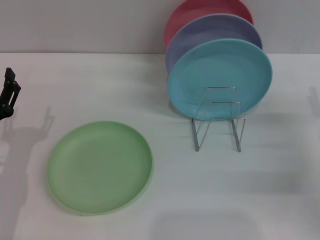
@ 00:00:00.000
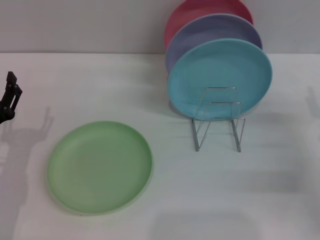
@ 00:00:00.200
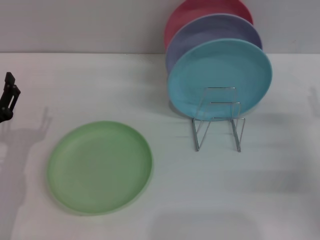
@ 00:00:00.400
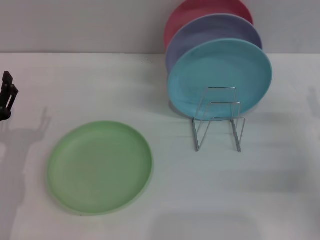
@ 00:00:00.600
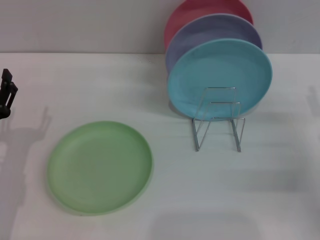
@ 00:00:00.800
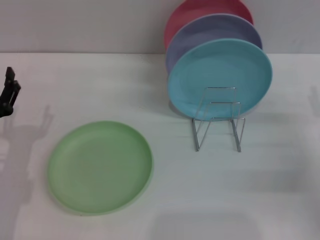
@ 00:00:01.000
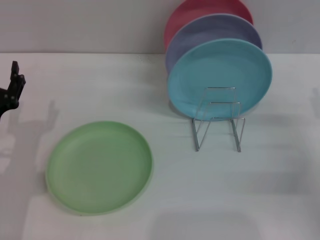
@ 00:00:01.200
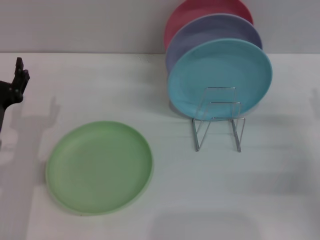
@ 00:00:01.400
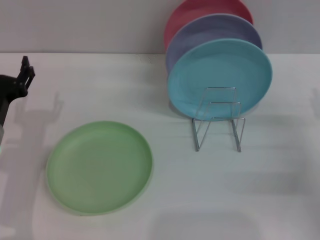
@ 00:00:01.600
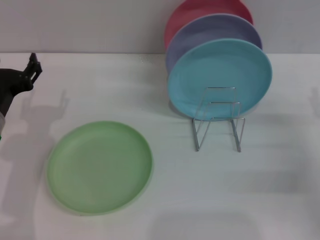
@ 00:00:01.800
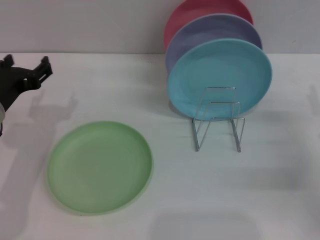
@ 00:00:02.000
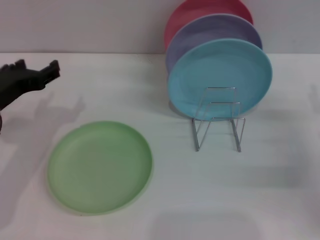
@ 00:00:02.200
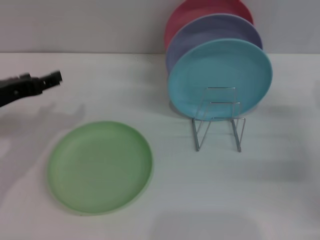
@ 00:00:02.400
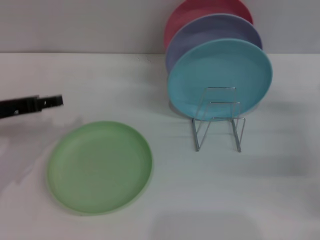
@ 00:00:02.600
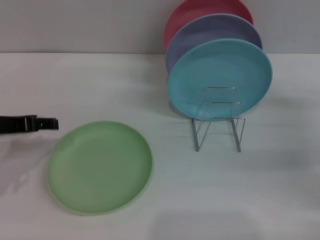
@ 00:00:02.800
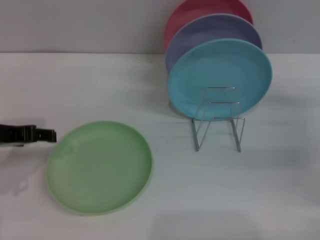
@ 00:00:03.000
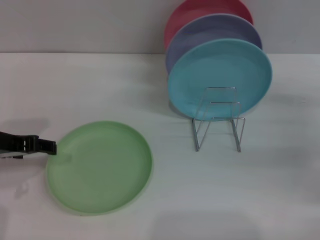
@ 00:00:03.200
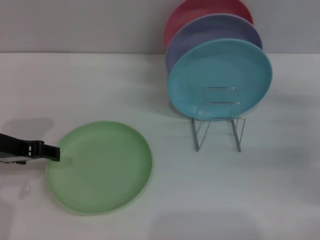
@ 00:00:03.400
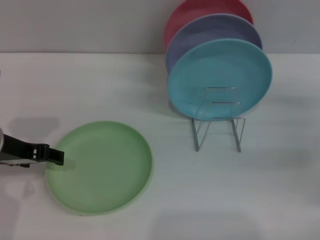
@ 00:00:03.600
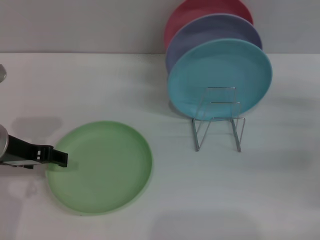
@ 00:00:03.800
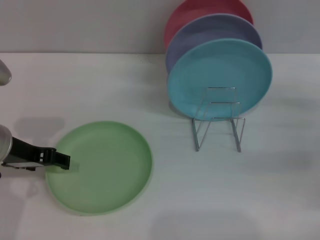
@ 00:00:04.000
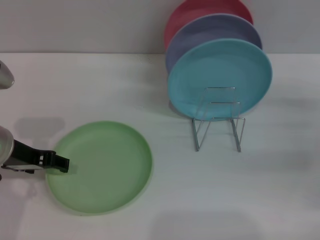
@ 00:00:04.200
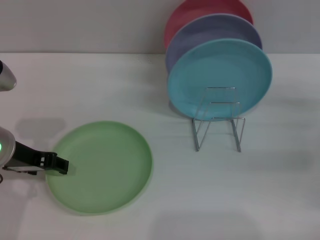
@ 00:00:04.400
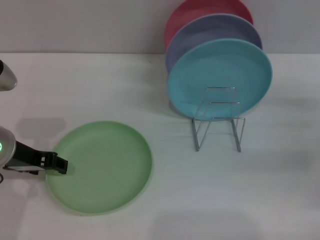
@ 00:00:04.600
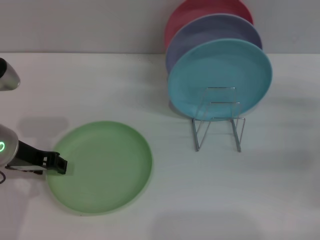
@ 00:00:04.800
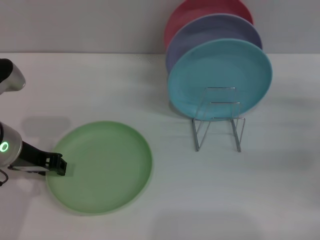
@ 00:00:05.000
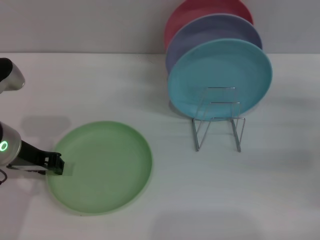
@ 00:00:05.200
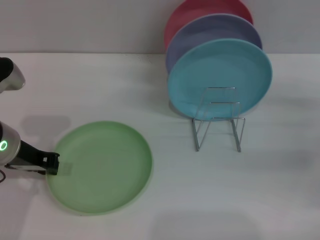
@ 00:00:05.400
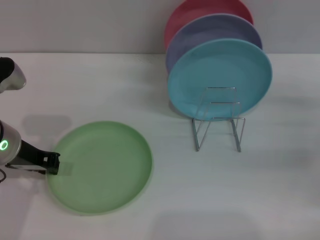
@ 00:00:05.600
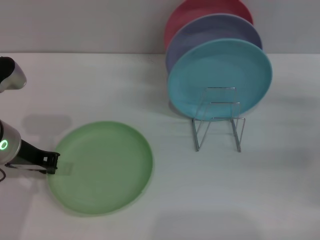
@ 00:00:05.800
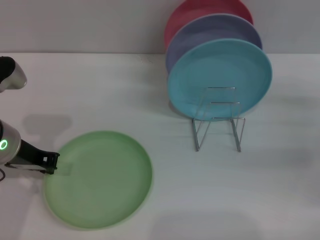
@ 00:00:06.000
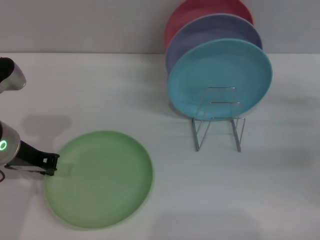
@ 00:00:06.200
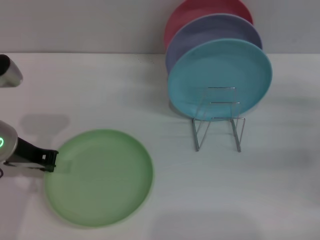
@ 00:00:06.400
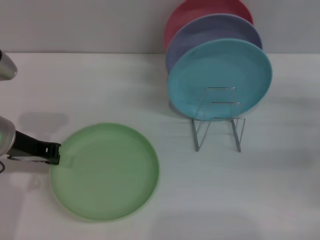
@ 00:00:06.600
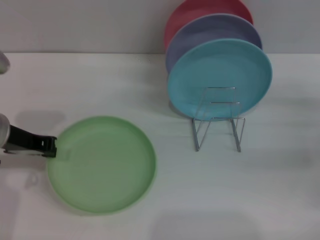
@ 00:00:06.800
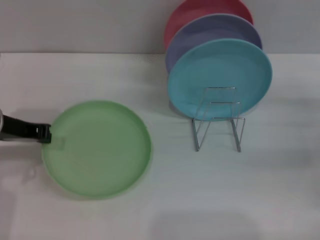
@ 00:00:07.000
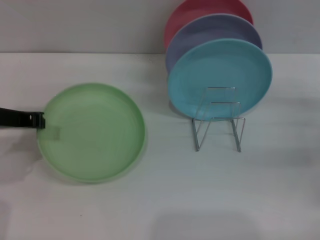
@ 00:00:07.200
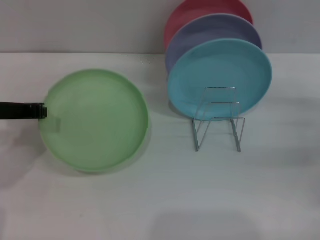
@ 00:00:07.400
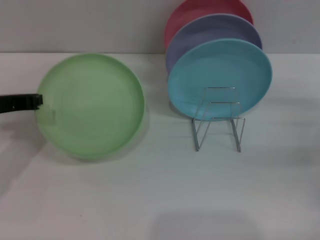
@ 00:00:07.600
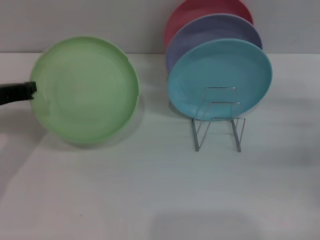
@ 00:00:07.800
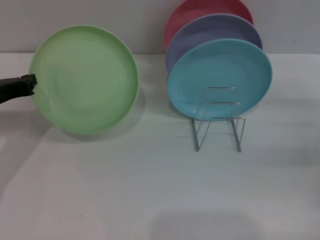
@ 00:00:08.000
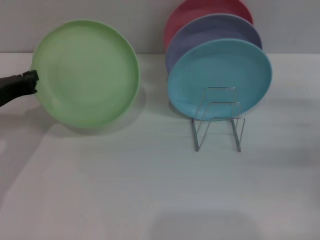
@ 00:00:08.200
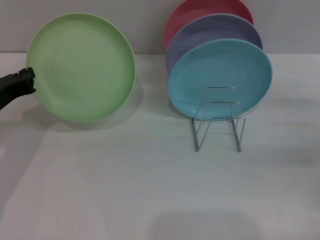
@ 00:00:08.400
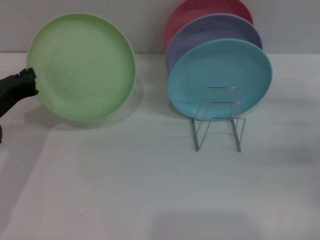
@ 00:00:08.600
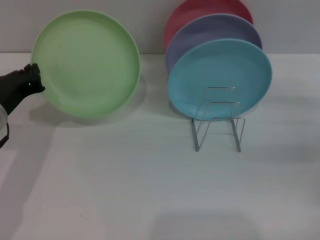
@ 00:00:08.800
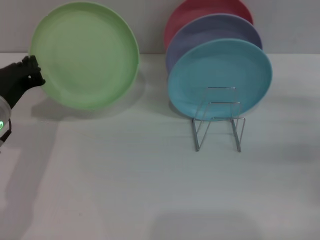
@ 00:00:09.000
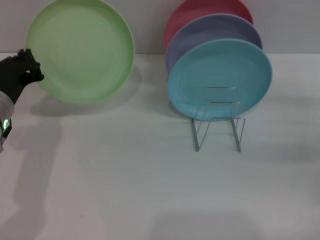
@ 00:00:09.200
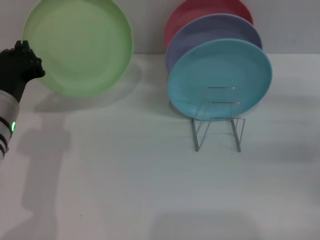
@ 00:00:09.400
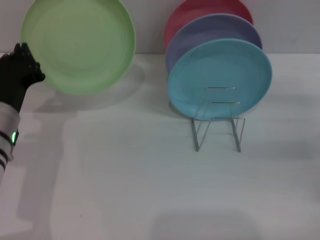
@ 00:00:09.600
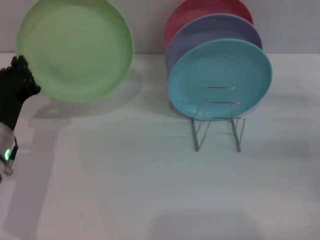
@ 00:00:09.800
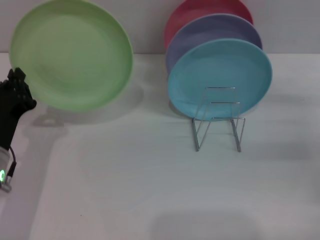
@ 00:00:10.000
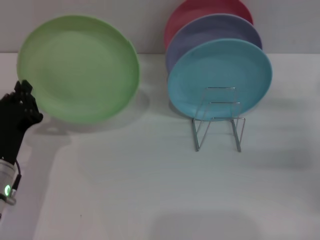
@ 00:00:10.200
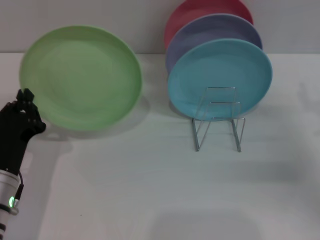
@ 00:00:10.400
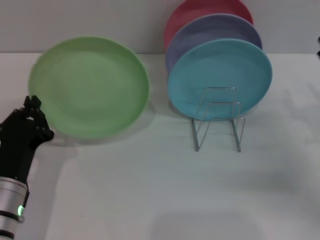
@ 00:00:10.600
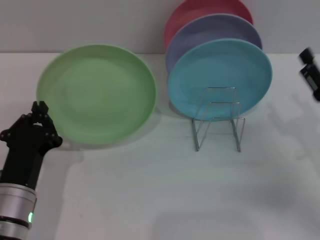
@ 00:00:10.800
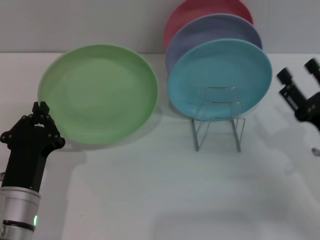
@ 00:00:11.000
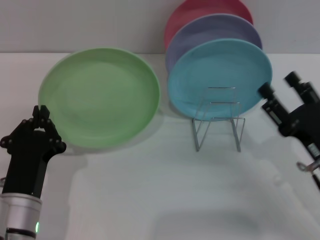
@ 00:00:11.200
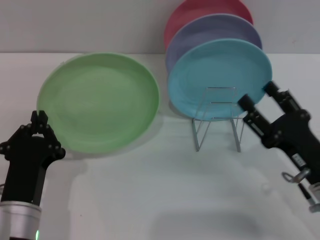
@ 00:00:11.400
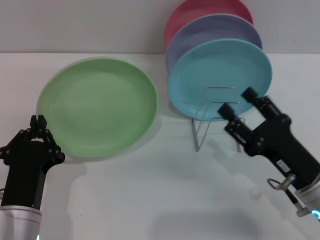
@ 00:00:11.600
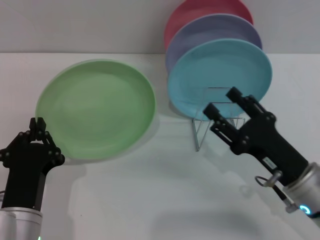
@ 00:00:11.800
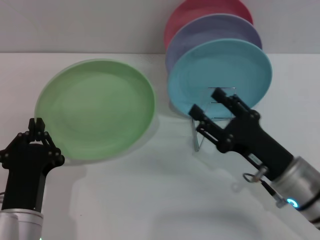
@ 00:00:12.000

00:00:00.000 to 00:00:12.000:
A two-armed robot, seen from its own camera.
Task of the whole recording: Grip the plate with one hand, pass it to the other, then set it on the shelf.
Step, 00:00:00.000 to 00:00:07.800: Pick up the plate with the left gripper.
00:00:00.000 to 00:00:01.600: The left gripper shifts by roughly 5 cm.
00:00:01.600 to 00:00:03.000: The right gripper shifts by about 5 cm. Meanwhile the left gripper moves upward, approximately 10 cm.
00:00:03.000 to 00:00:04.400: The grippers stay close to where they were, moving slightly.
00:00:04.400 to 00:00:06.000: The left gripper closes its fingers.
00:00:06.000 to 00:00:07.600: The left gripper moves roughly 5 cm.
00:00:07.600 to 00:00:09.000: The left gripper moves some 5 cm.
00:00:09.000 to 00:00:10.400: The left gripper moves backward and downward, roughly 10 cm.
00:00:10.400 to 00:00:12.000: The left gripper heads backward and to the right, covering approximately 10 cm; the right gripper goes about 15 cm to the left.

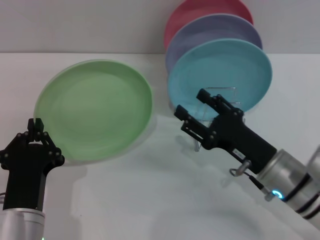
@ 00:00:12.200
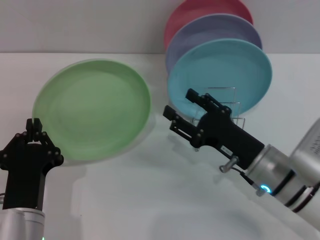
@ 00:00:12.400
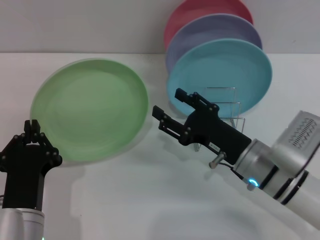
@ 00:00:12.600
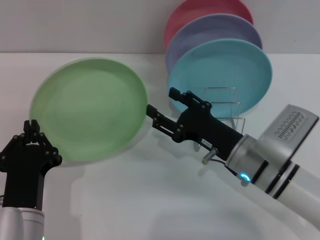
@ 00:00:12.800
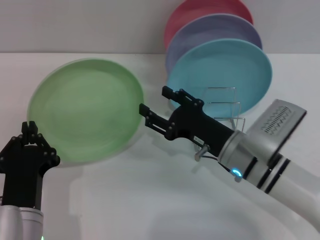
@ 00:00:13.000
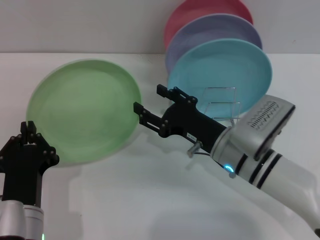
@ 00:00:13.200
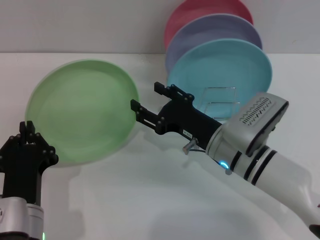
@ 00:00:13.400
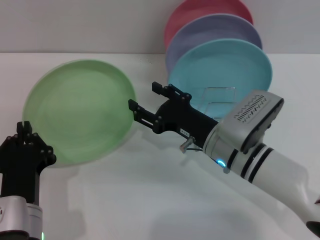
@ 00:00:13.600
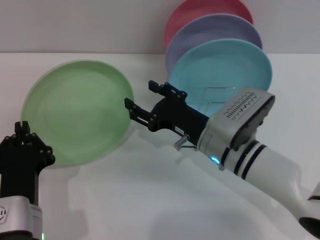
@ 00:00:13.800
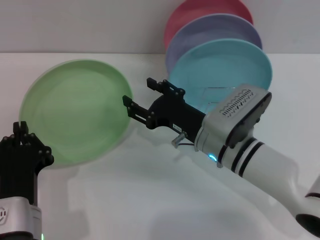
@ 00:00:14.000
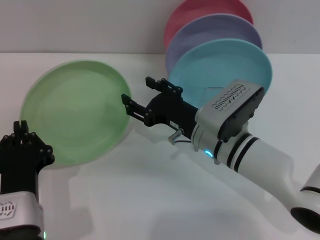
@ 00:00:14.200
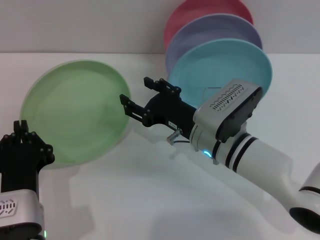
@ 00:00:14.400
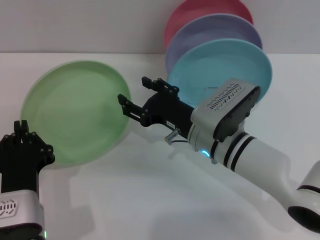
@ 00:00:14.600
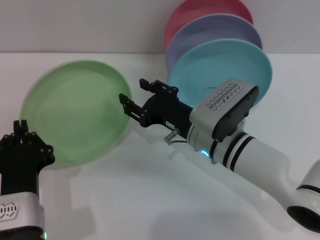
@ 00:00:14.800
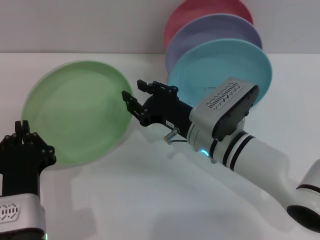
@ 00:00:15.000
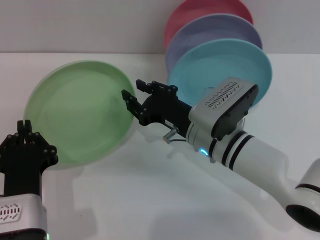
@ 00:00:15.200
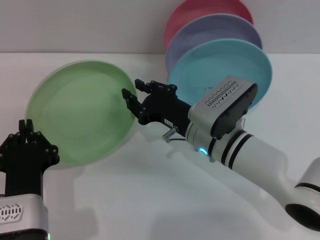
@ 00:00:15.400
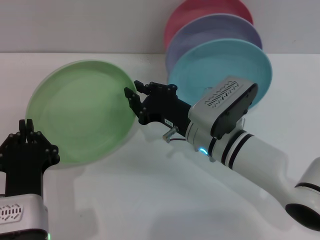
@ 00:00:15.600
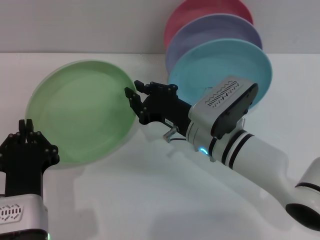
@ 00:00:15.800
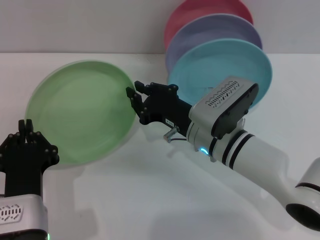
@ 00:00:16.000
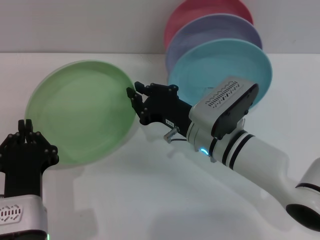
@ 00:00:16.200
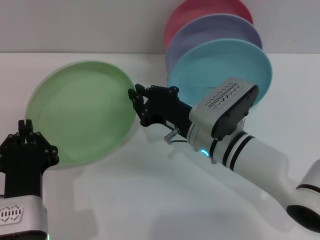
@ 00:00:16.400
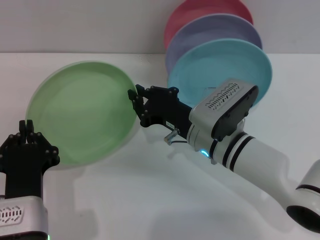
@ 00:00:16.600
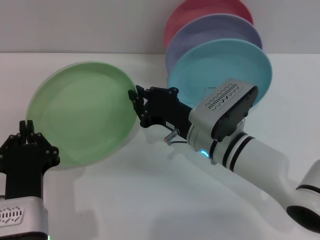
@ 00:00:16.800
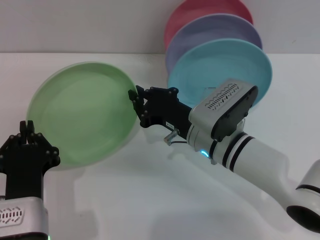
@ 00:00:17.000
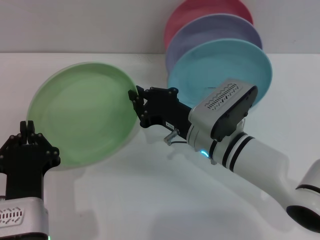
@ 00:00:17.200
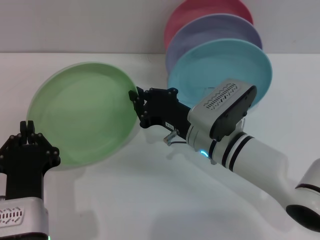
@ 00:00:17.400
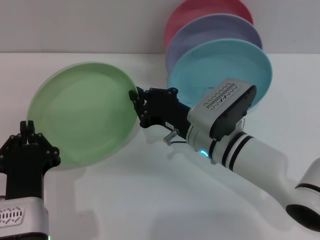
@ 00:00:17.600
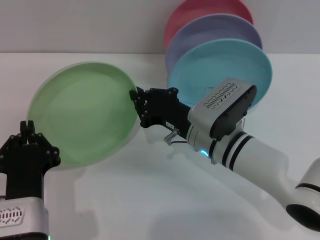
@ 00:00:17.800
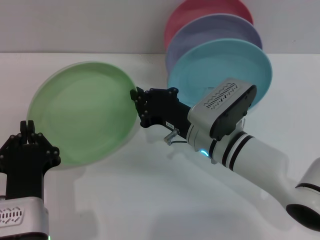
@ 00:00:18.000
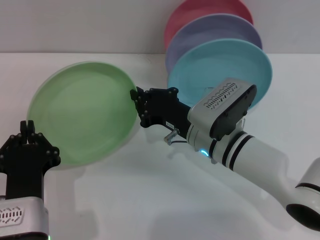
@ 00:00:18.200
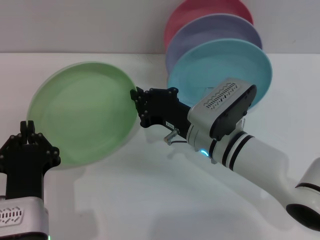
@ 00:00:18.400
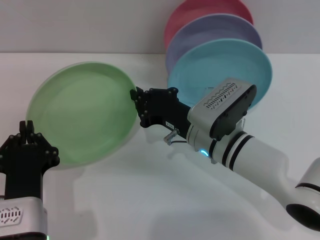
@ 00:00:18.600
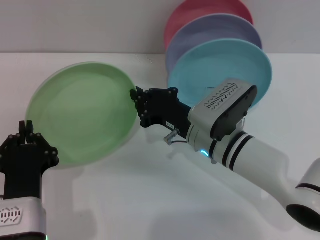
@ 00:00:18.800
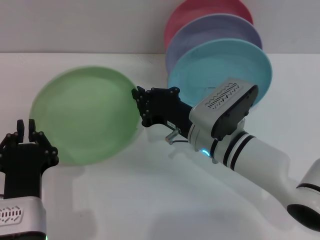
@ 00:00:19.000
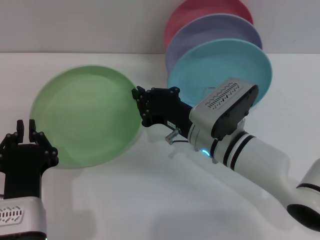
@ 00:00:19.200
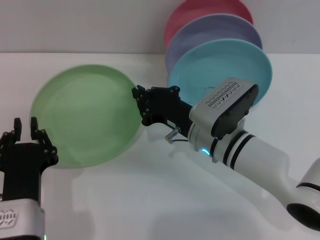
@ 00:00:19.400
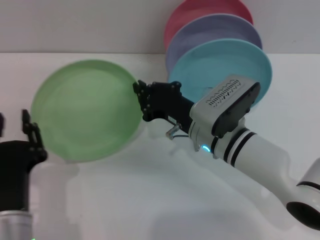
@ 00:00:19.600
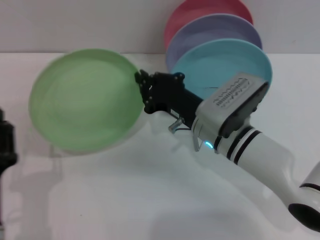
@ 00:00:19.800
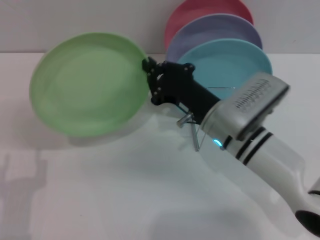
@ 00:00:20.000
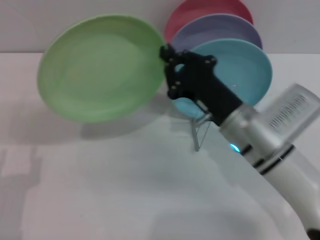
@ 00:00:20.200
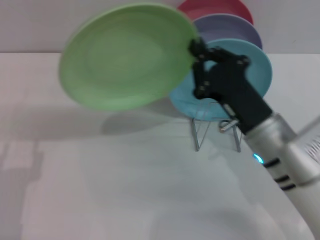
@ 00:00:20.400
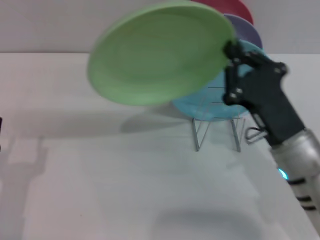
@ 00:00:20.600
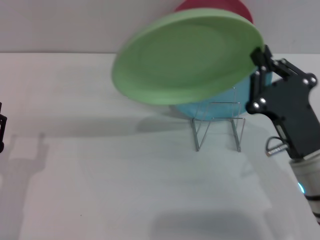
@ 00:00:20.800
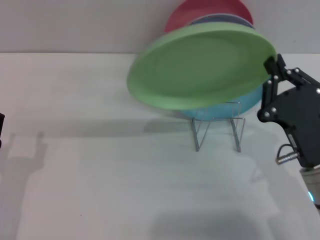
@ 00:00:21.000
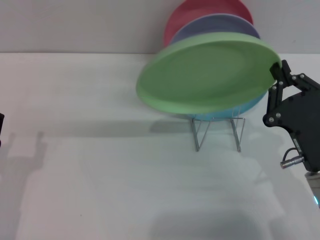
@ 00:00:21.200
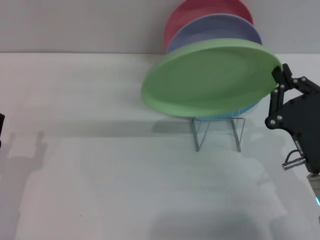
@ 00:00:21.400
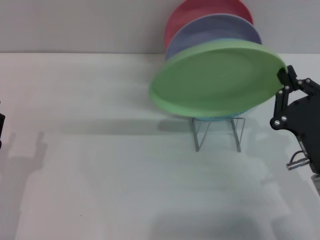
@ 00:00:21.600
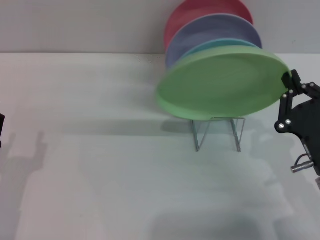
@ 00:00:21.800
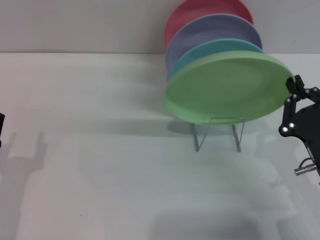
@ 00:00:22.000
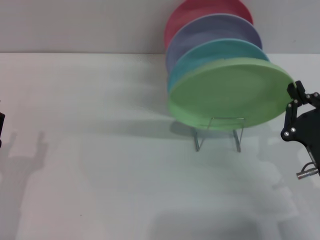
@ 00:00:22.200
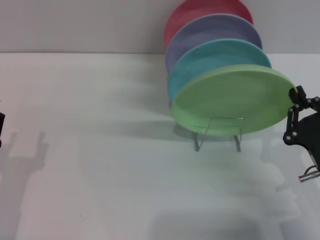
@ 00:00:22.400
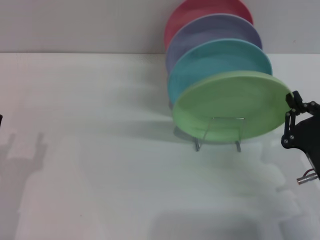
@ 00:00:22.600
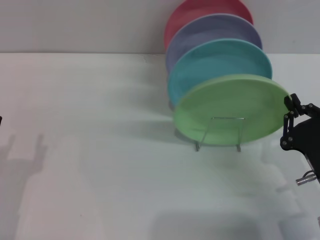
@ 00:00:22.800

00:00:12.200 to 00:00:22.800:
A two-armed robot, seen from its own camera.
Task of the whole recording: Grip the plate with one hand, pass it to the other, then set it on the shelf.
Step, 00:00:12.200 to 00:00:19.600: Pass the plate from the left gripper to the right gripper.
00:00:12.200 to 00:00:13.800: The right gripper is displaced to the left and forward by some 10 cm.
00:00:13.800 to 00:00:15.200: The right gripper closes.
00:00:15.200 to 00:00:16.800: The right gripper closes its fingers.
00:00:16.800 to 00:00:18.200: Neither gripper changes place.
00:00:19.800 to 00:00:21.200: The left gripper travels to the left by roughly 5 cm, and opens, while the right gripper shifts approximately 15 cm to the right and backward.
00:00:21.200 to 00:00:22.800: The right gripper moves approximately 5 cm.
